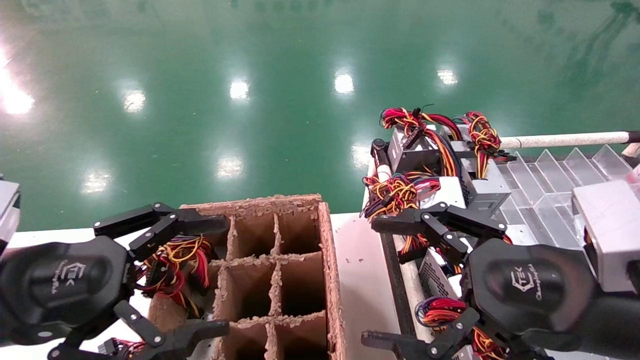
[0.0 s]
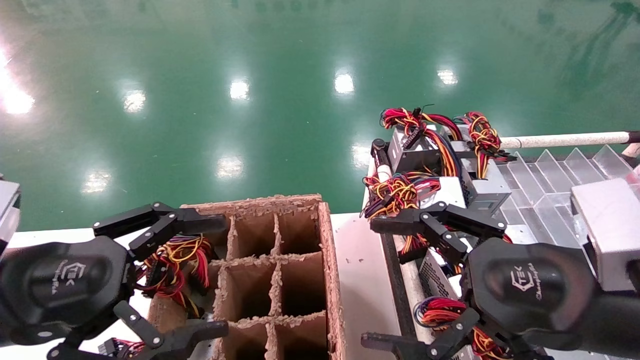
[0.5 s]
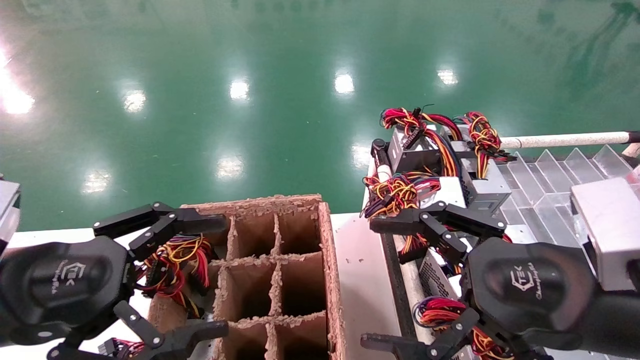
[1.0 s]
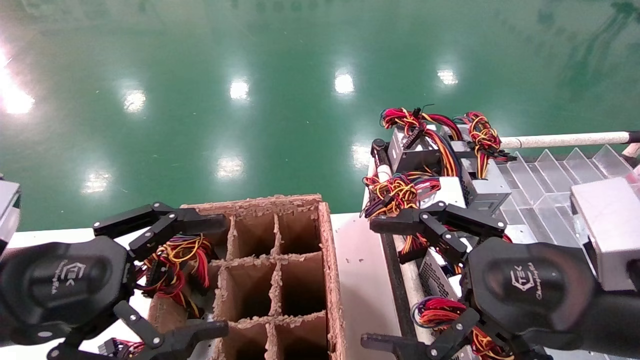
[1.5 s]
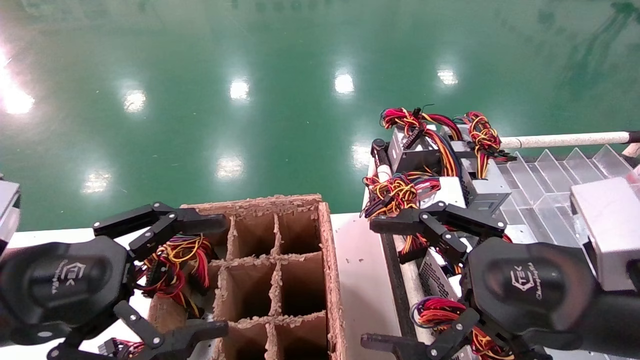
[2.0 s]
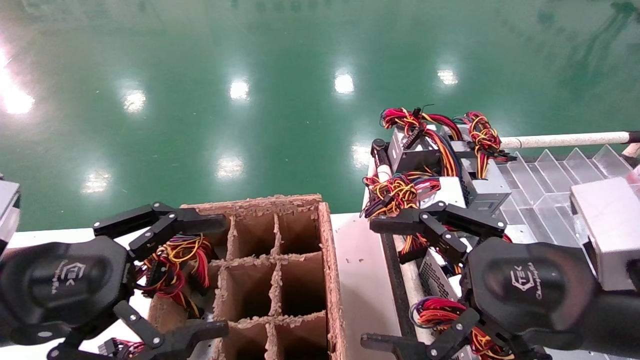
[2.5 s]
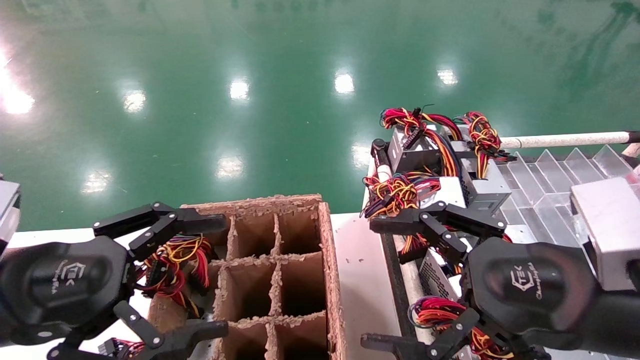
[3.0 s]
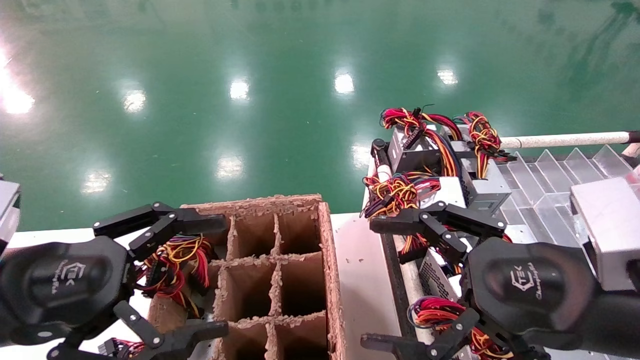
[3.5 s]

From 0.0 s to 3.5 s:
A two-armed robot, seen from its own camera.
From 0.0 s to 3.5 s: The two grippers keep their place.
